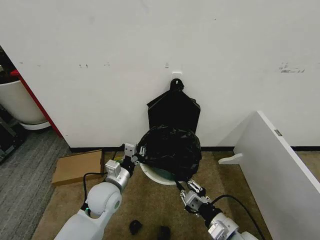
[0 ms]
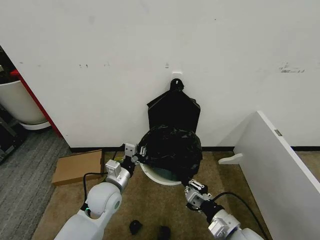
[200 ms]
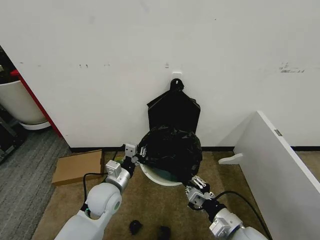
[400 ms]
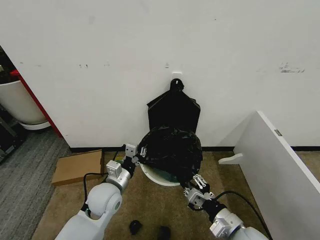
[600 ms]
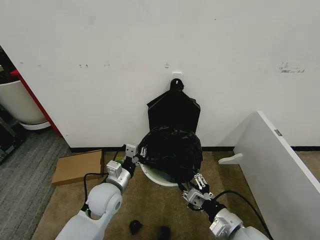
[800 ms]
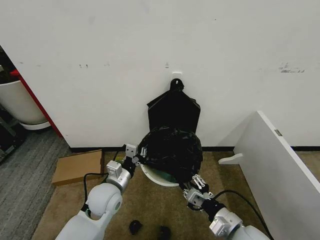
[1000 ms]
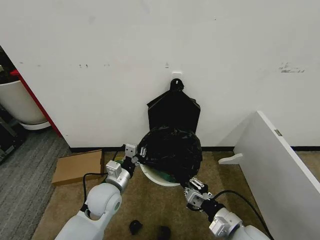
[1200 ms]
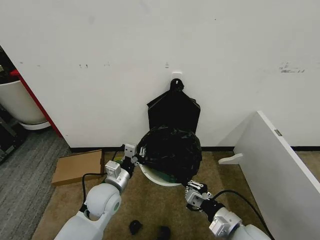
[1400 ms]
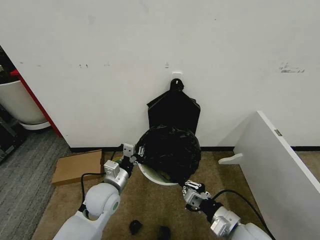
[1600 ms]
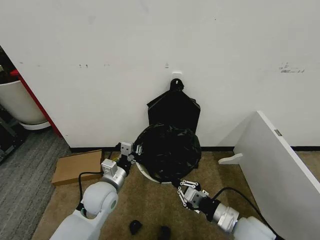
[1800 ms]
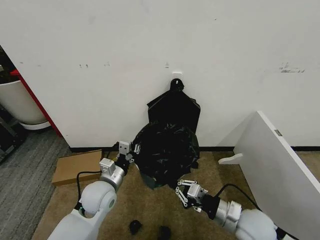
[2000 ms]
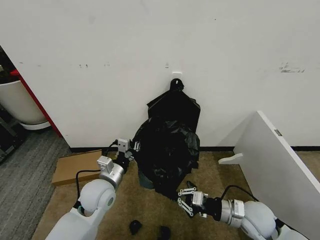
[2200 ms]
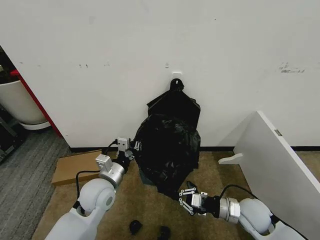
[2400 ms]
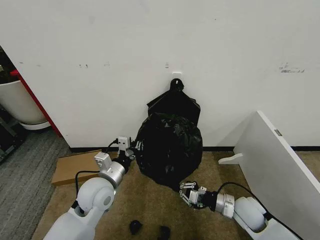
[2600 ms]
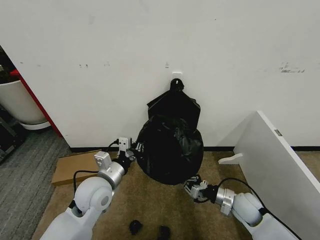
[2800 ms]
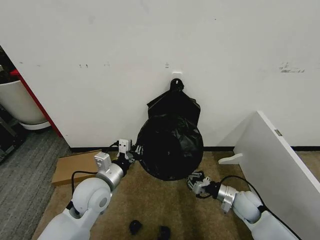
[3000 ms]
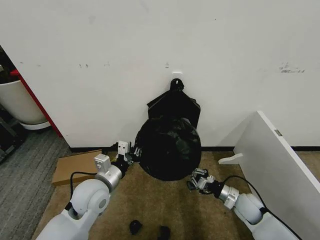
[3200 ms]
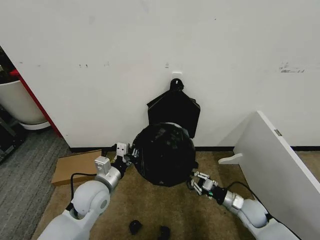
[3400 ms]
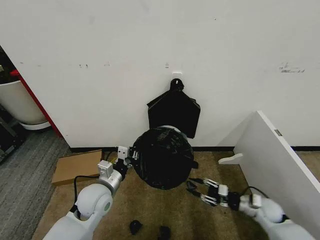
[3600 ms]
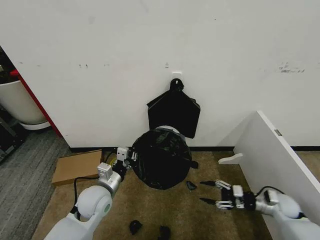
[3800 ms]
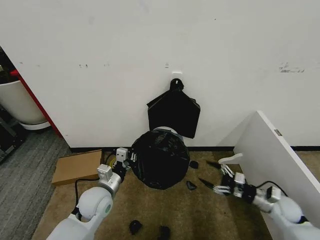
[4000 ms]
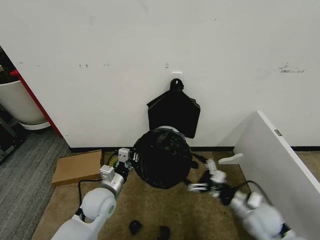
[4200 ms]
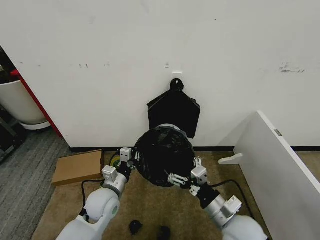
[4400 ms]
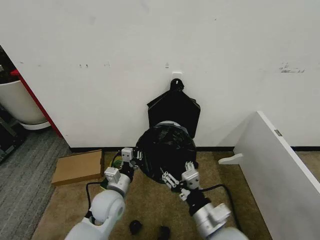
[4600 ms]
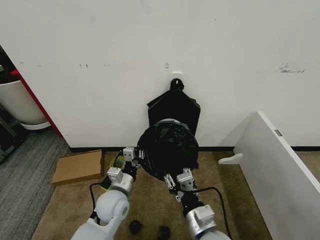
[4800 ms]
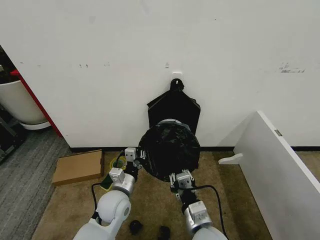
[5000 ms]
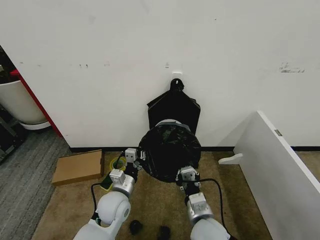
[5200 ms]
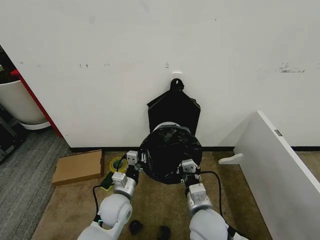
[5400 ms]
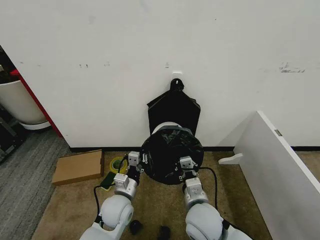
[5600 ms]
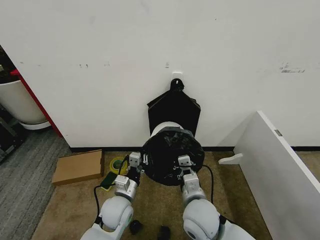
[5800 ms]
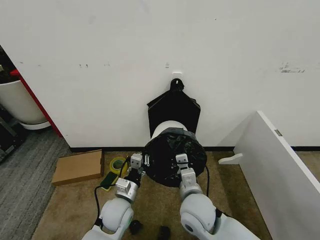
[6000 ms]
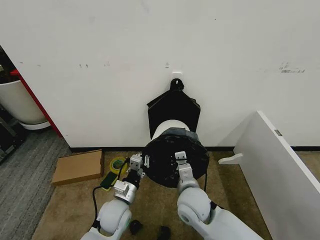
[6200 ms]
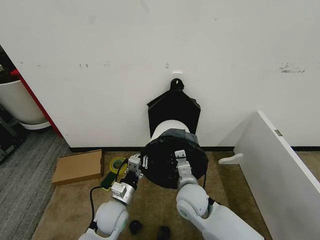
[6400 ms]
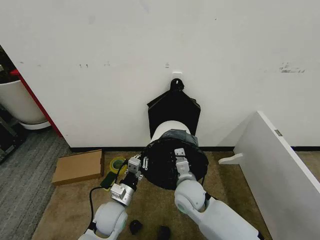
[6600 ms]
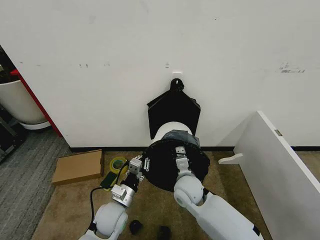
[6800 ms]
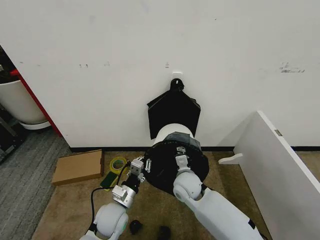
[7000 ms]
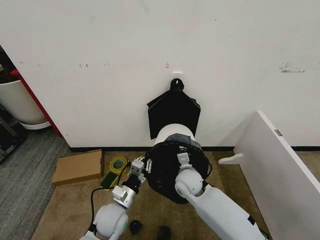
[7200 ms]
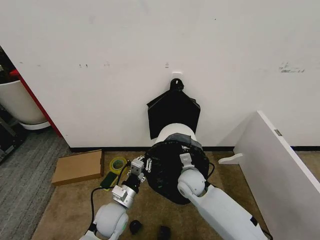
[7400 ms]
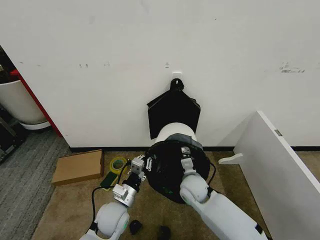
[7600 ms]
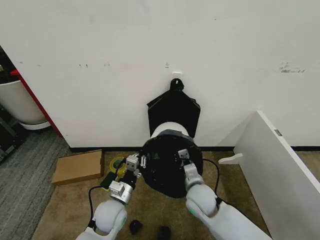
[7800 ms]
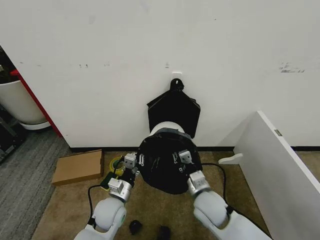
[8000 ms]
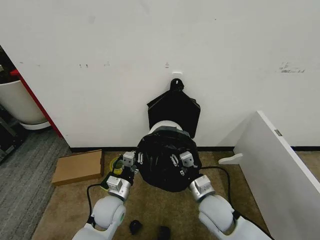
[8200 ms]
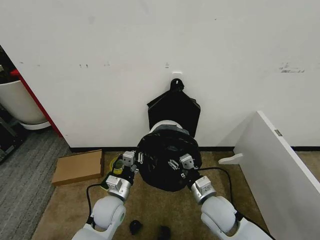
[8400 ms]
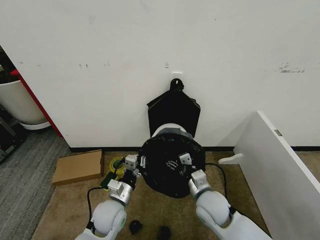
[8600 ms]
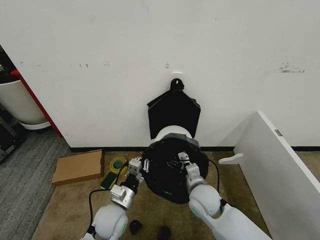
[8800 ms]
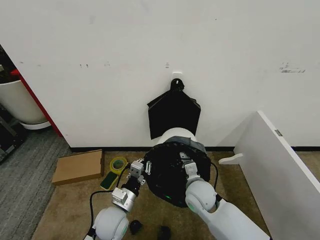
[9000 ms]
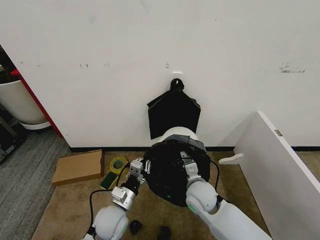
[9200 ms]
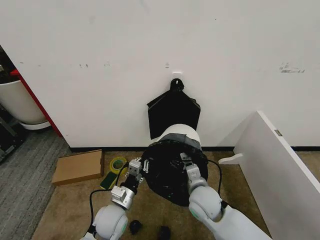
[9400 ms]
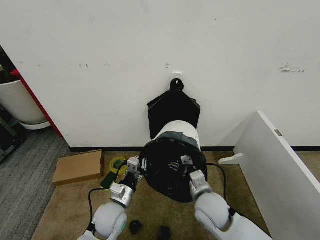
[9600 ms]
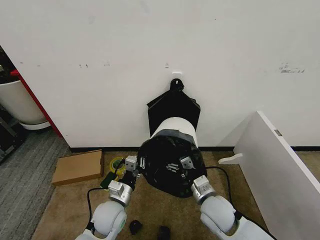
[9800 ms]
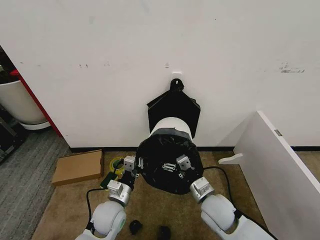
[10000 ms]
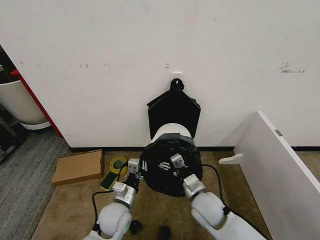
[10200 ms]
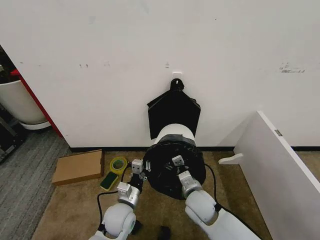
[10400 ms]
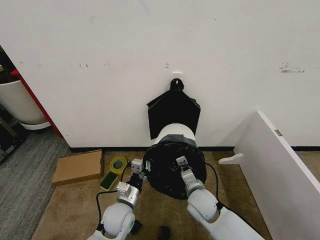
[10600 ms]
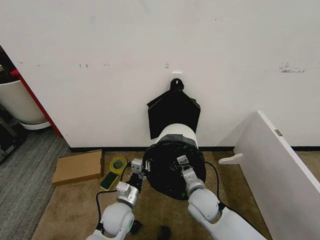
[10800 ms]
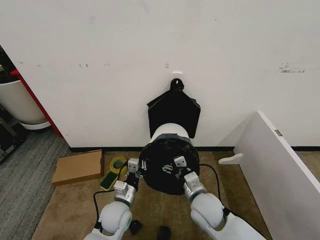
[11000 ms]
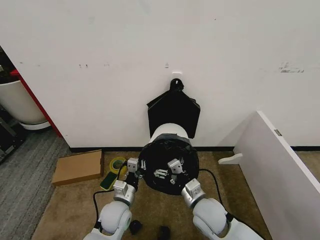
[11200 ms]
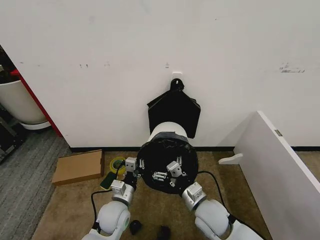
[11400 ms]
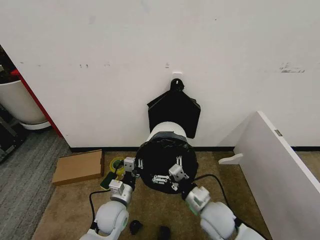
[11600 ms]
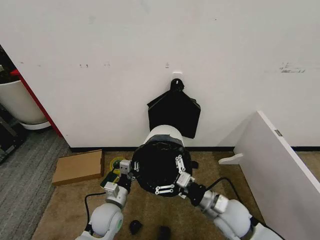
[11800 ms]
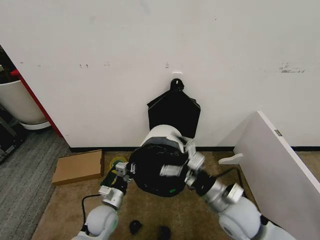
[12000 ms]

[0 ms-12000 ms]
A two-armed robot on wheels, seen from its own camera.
Task of the whole recording: Place the garbage bag over the trash bin.
0 ms to 1600 ms: The right gripper opens and closes again.
1600 ms to 3000 ms: The left gripper moves upward, roughly 5 cm; the right gripper goes some 20 cm forward, downward and to the right.
3000 ms to 4400 ms: The left gripper goes some 10 cm downward, while the right gripper moves upward, backward and to the left, approximately 20 cm, and opens its fingers.
4400 ms to 6000 ms: The left gripper moves about 5 cm. The right gripper travels to the left and forward by approximately 10 cm, and closes up.
6000 ms to 7600 ms: The right gripper shifts some 15 cm forward and downward.
7600 ms to 9000 ms: The right gripper opens its fingers.
10400 ms to 12000 ms: The left gripper shifts roughly 10 cm to the left; the right gripper moves upward, to the right and backward, some 15 cm.

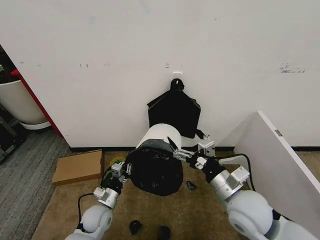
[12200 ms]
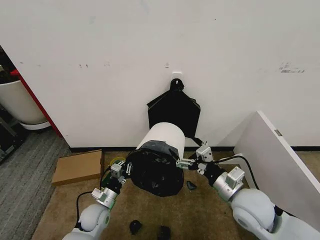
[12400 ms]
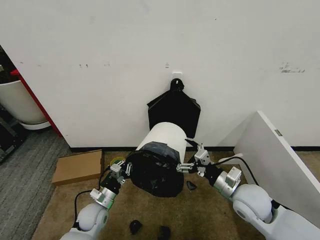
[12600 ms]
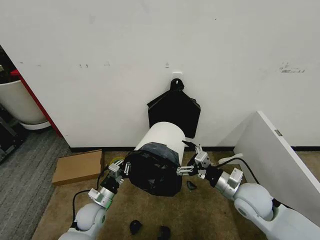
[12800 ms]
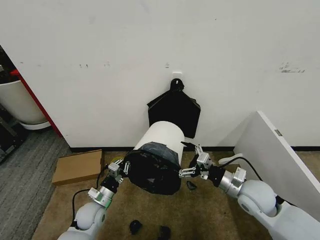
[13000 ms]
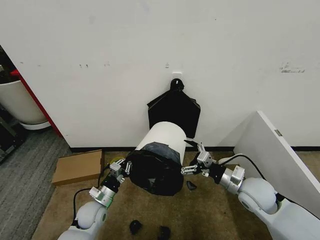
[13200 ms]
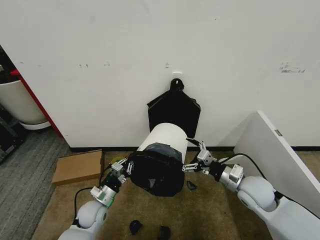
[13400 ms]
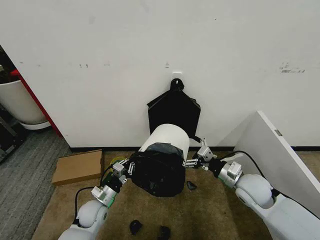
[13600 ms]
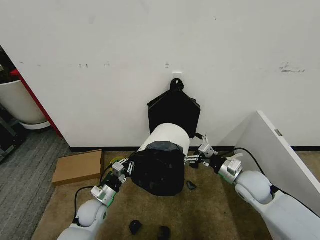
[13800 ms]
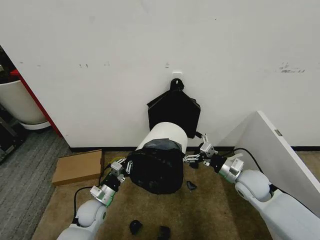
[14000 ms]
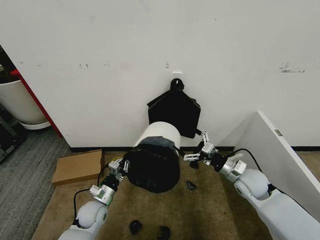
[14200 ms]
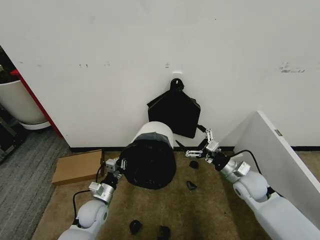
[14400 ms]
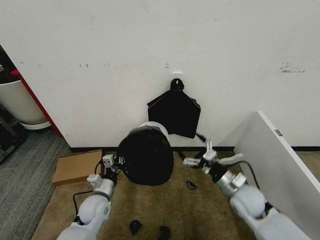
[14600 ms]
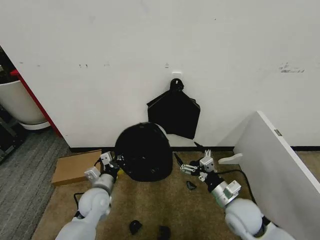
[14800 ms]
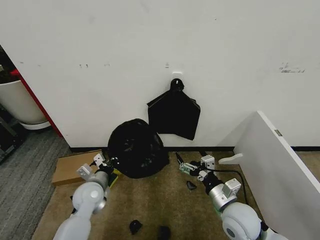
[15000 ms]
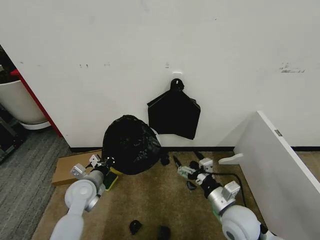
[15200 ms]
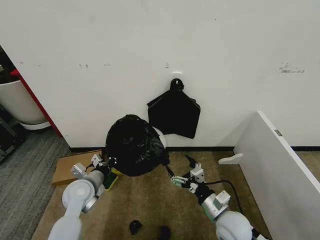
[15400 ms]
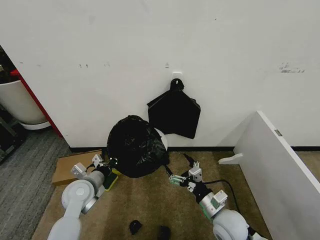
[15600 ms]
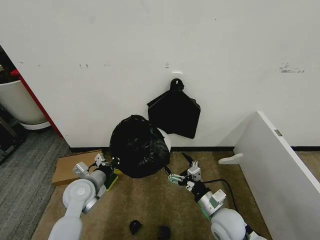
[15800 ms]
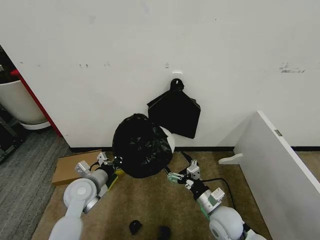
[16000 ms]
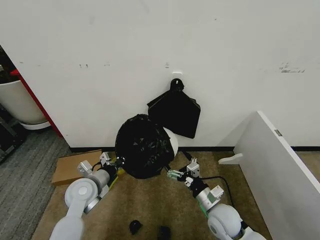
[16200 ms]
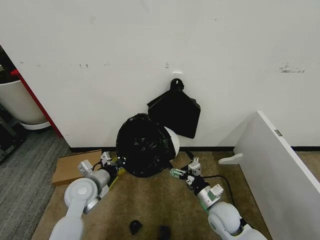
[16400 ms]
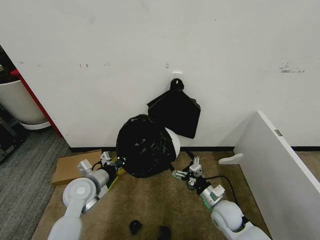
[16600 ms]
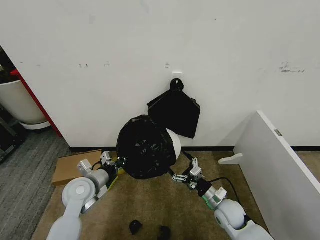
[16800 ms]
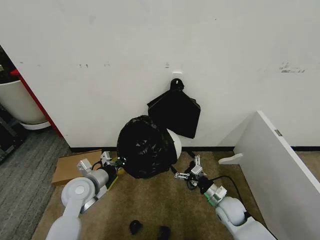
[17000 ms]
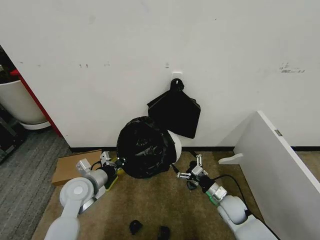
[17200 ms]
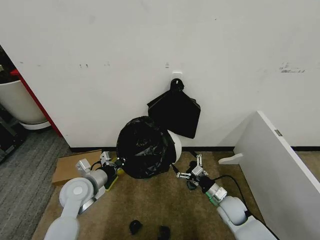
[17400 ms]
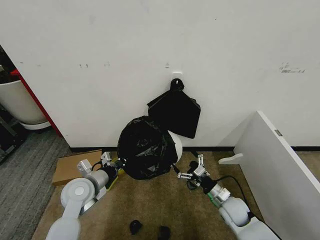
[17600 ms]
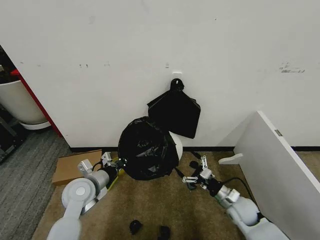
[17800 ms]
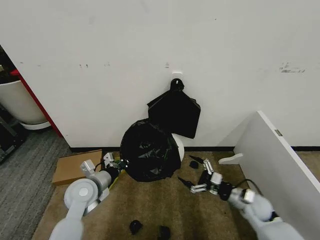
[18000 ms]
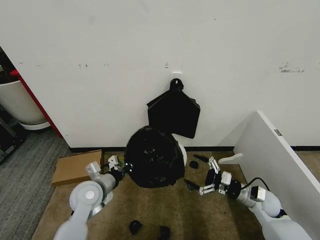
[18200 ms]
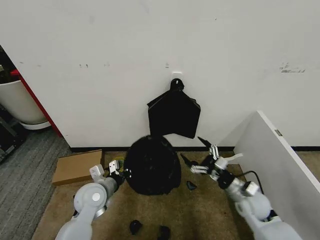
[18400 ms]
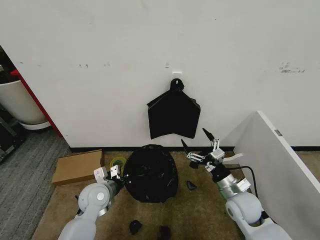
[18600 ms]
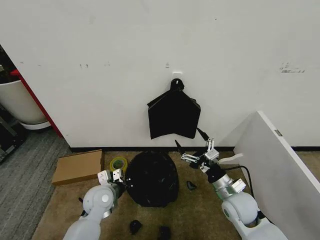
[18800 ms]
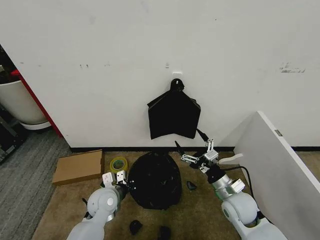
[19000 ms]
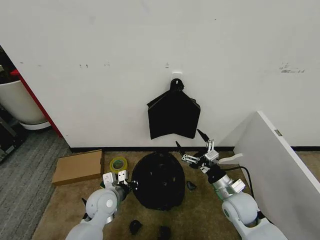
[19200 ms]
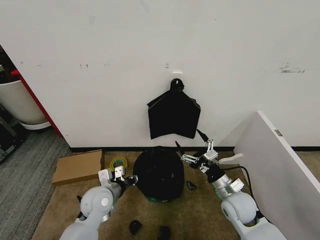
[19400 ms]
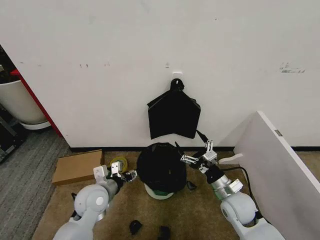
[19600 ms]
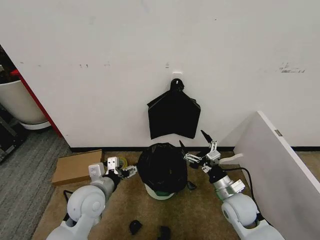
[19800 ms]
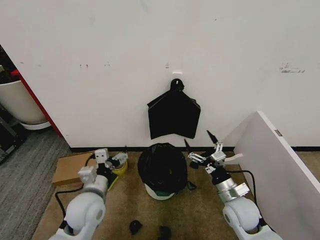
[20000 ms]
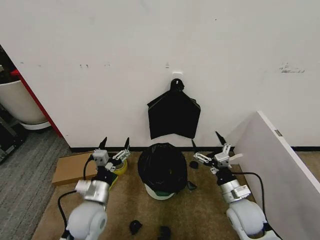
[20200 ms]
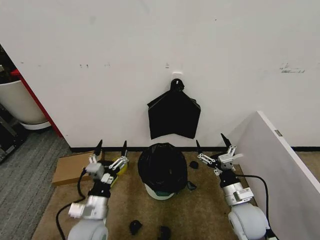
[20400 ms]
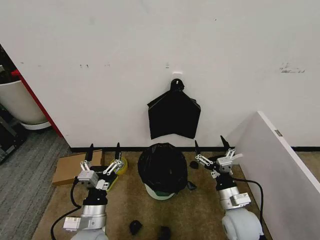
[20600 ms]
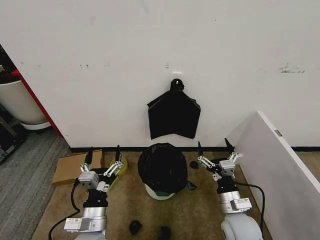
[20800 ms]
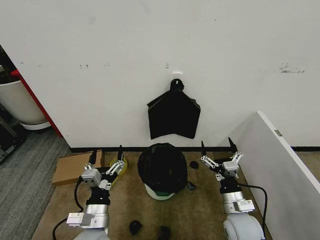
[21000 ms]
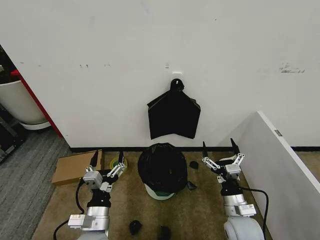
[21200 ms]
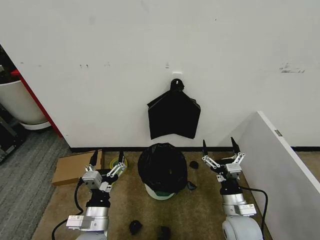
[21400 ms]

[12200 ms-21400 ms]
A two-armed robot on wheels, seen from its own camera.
Task of the whole recording: Place the garbage bag over the trash bin.
12200 ms to 13800 ms: The right gripper is displaced forward, to the right and downward by some 15 cm.
13800 ms to 15200 ms: The left gripper shifts about 10 cm upward, while the right gripper shifts some 10 cm backward and to the left.
15200 ms to 16800 ms: The right gripper is displaced downward and forward by some 10 cm.
16800 ms to 18400 ms: The right gripper travels upward and to the right by approximately 10 cm.
18400 ms to 19800 ms: The left gripper is displaced upward by about 5 cm, and opens up.
19800 ms to 21400 ms: The right gripper travels backward by roughly 5 cm, while the left gripper heads backward, covering roughly 10 cm.
